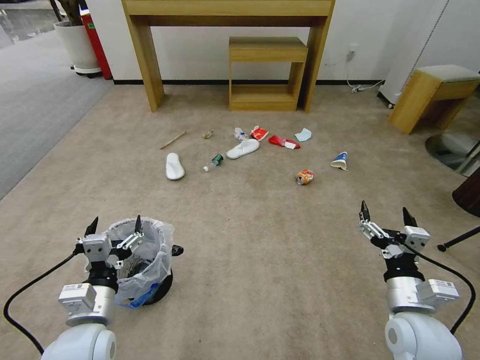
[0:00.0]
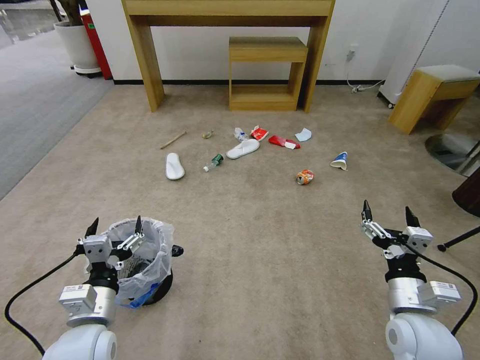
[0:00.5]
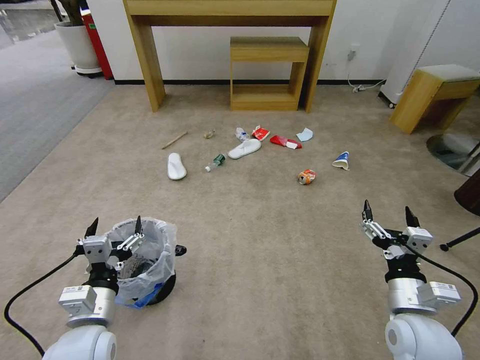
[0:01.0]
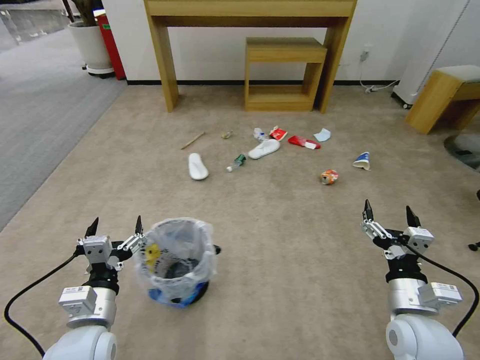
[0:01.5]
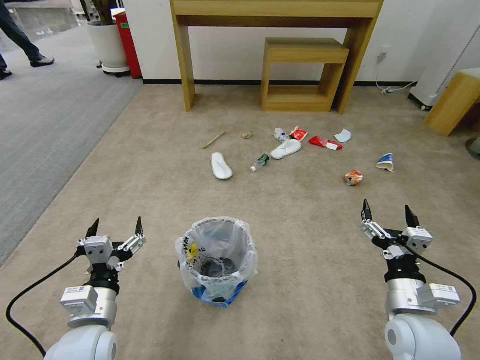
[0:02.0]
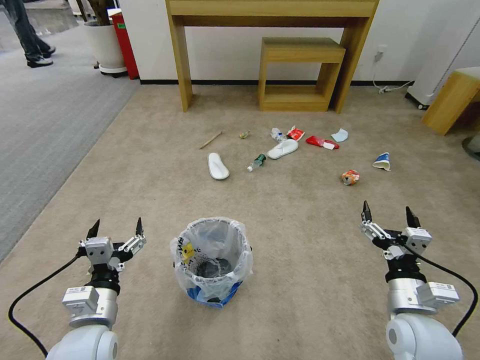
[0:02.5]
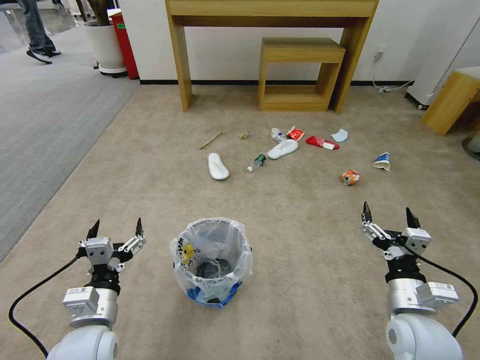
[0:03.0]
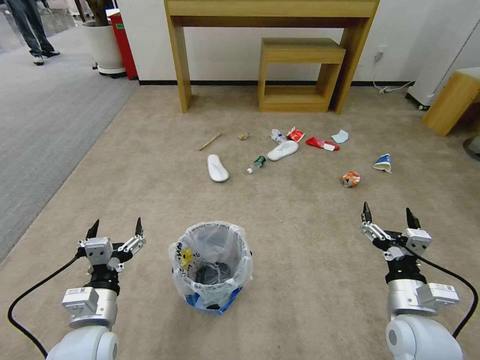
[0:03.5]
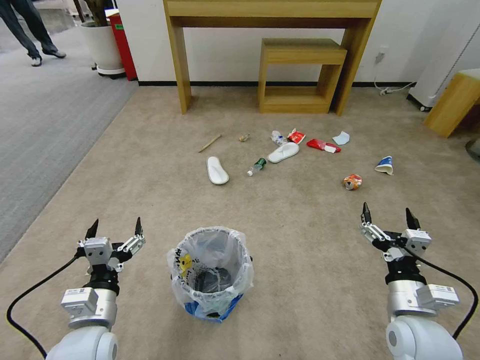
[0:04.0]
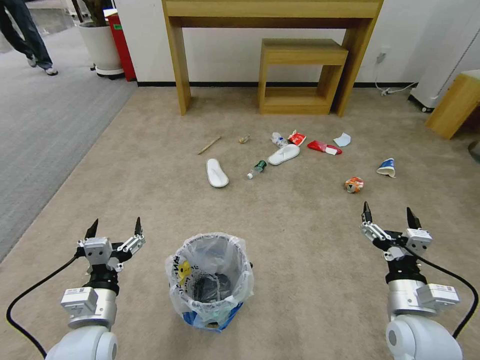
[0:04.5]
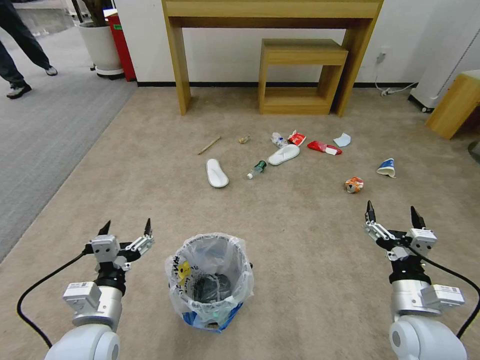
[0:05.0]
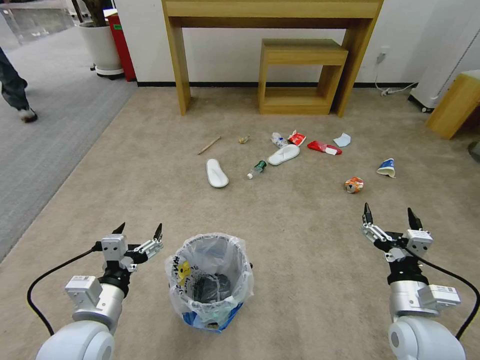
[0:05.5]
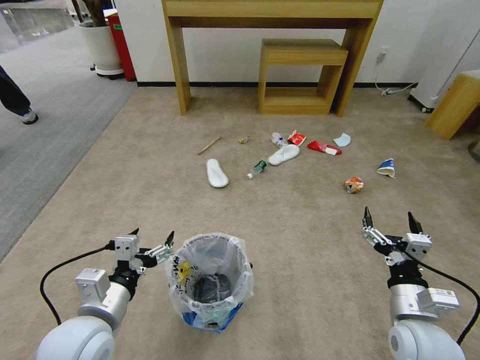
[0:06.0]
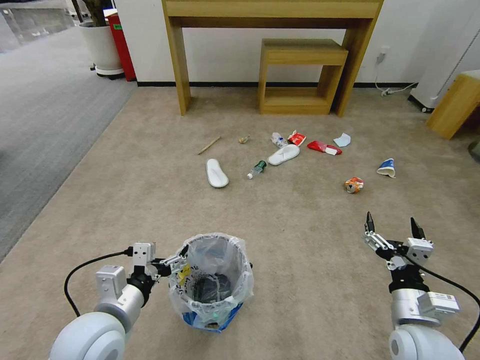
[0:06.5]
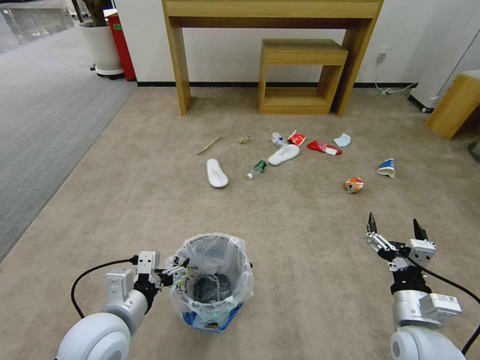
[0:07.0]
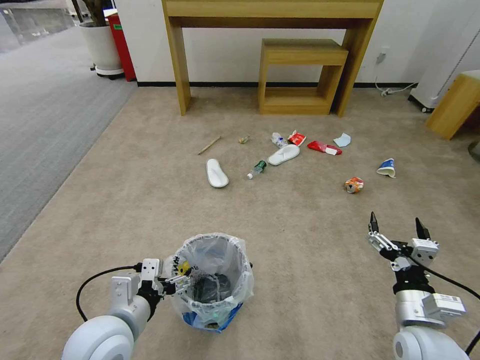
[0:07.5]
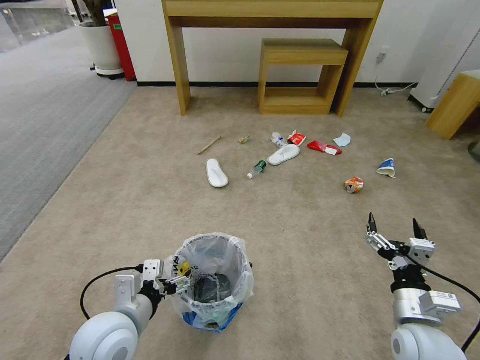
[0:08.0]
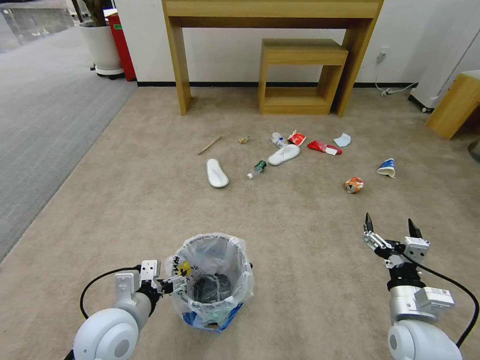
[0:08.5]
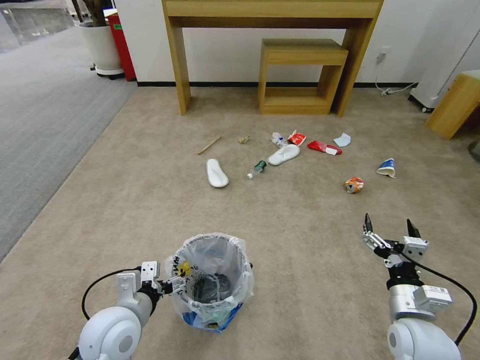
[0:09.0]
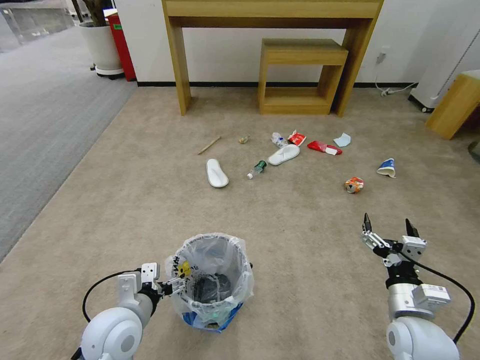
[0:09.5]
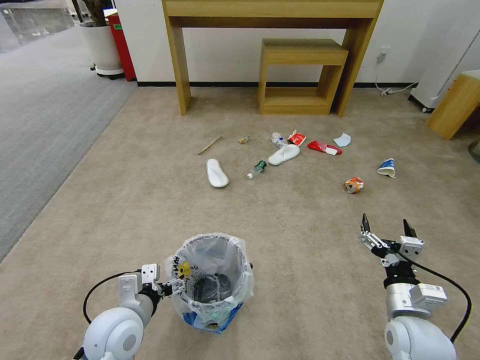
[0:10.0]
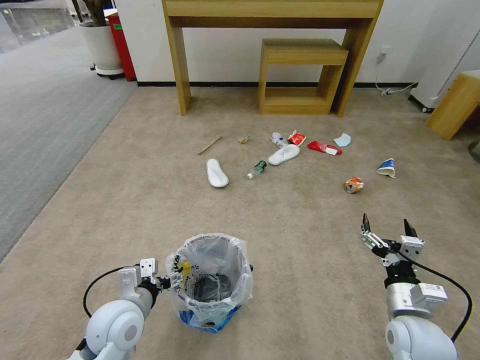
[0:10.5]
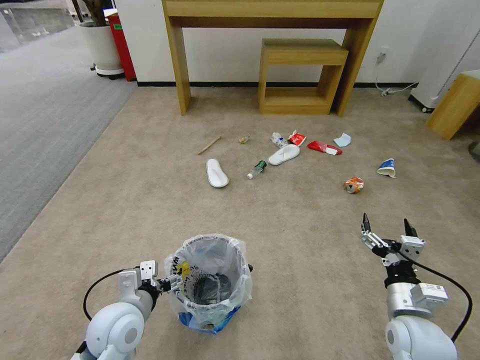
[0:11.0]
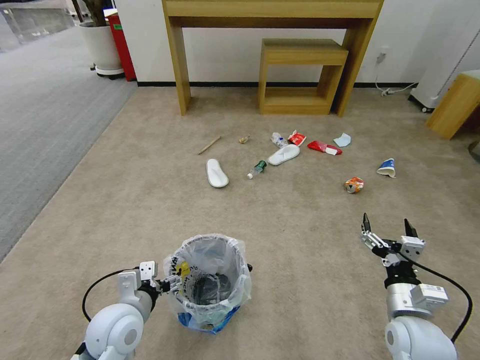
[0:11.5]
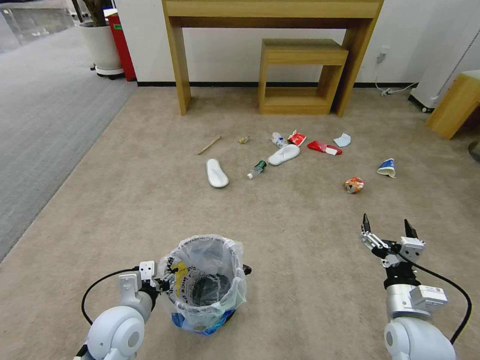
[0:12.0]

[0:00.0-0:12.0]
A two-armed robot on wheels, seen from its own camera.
Task of the whole recording: Pick up the trash bin and place the garbage on the floor into it.
0:02.0 to 0:04.0: Both grippers stay about where they are.
0:08.0 to 0:10.0: The grippers make only small movements.
0:10.0 to 0:12.0: The left gripper closes.

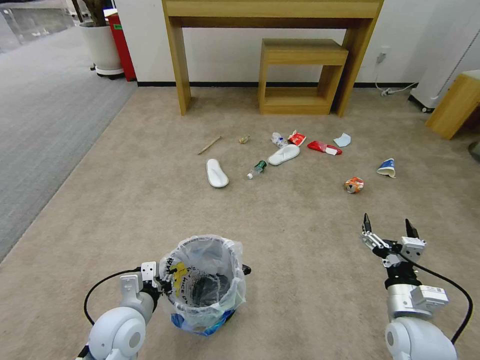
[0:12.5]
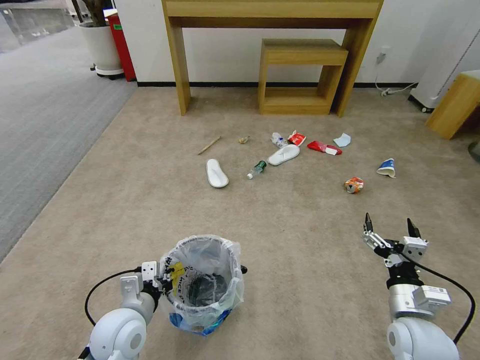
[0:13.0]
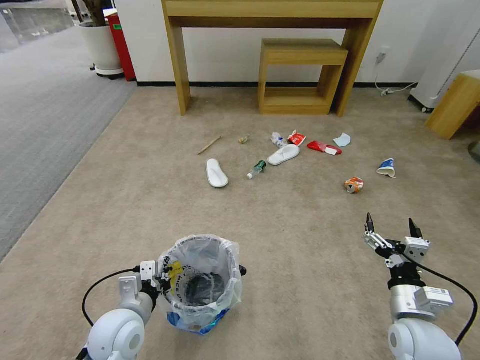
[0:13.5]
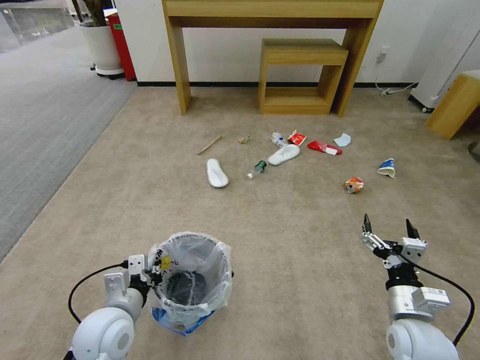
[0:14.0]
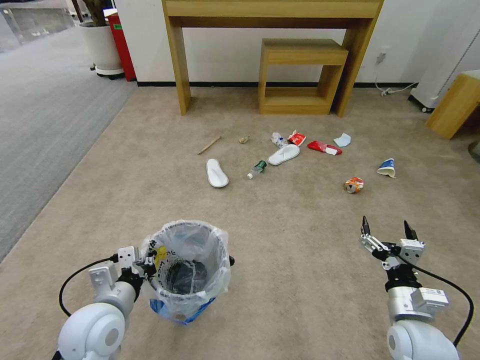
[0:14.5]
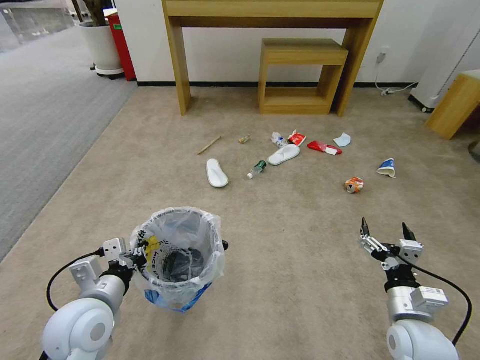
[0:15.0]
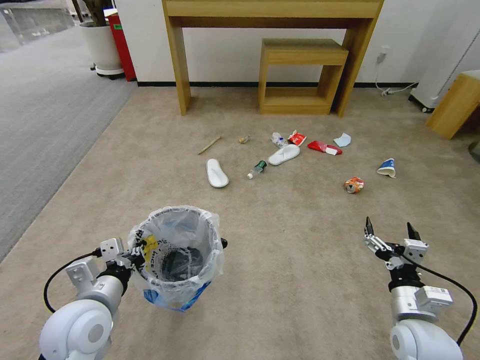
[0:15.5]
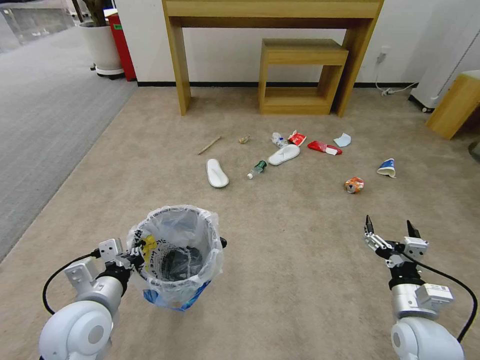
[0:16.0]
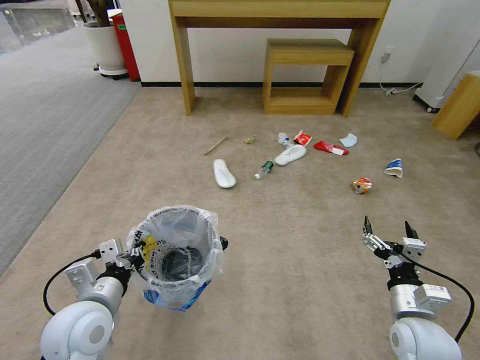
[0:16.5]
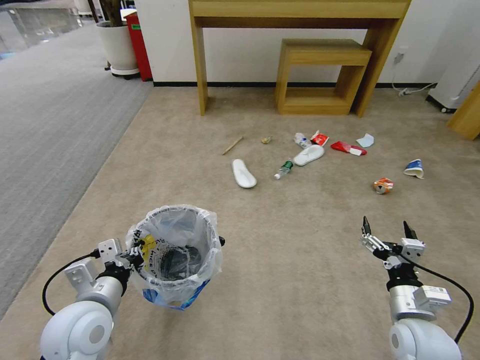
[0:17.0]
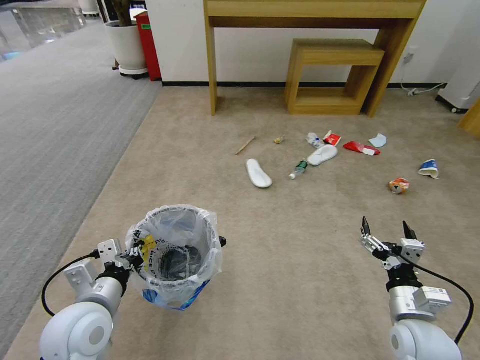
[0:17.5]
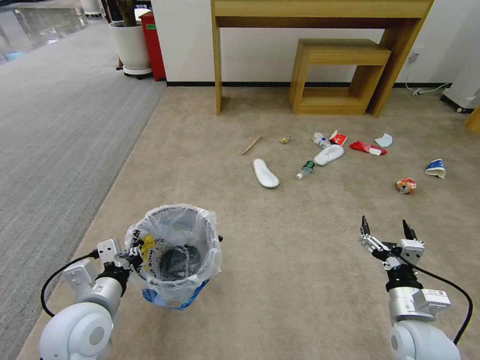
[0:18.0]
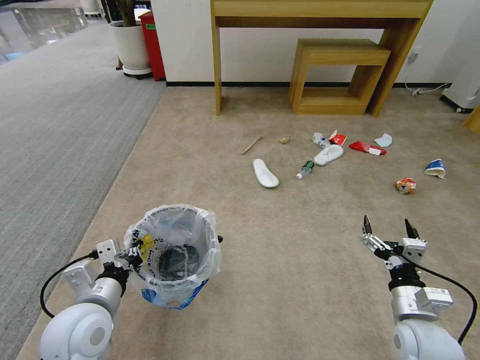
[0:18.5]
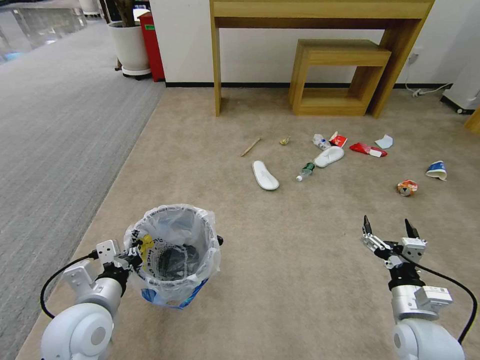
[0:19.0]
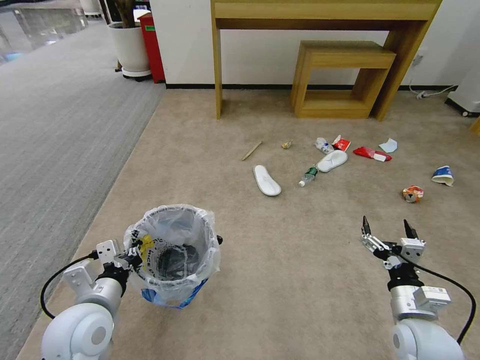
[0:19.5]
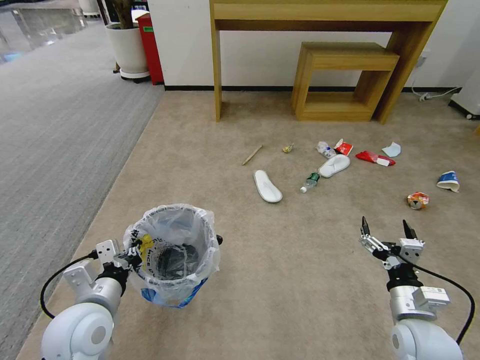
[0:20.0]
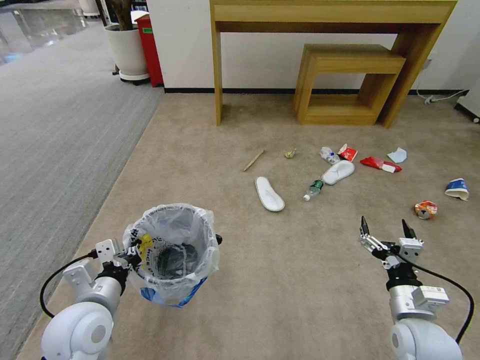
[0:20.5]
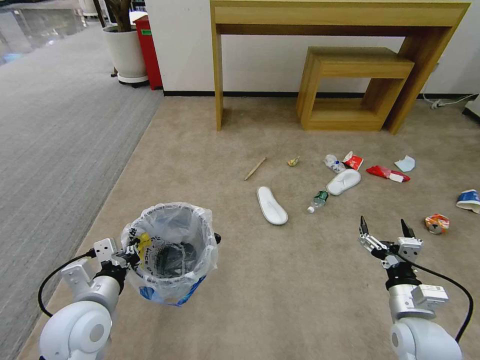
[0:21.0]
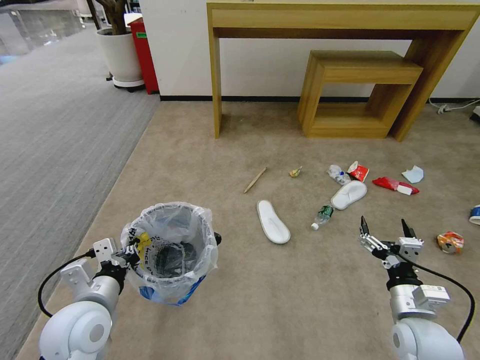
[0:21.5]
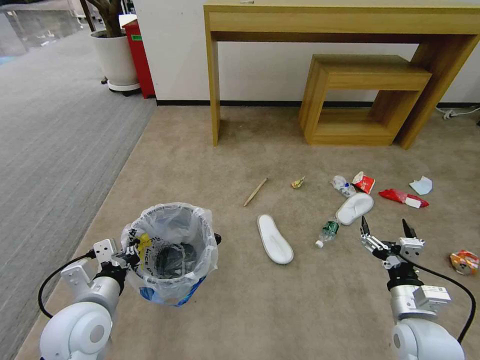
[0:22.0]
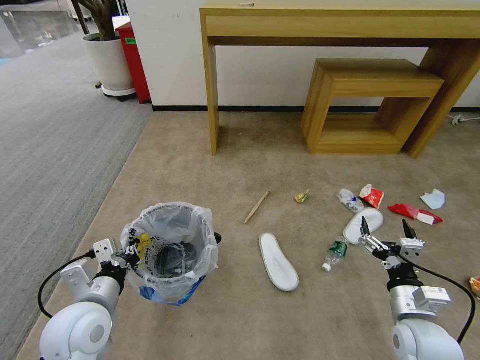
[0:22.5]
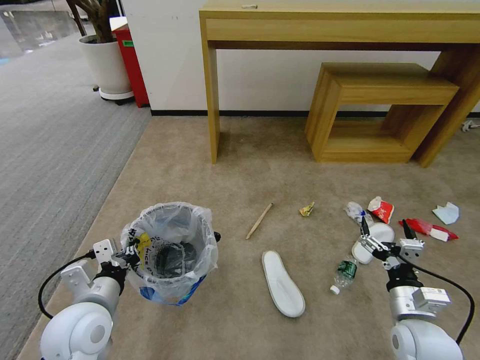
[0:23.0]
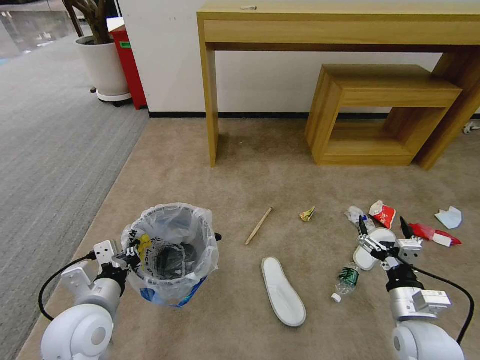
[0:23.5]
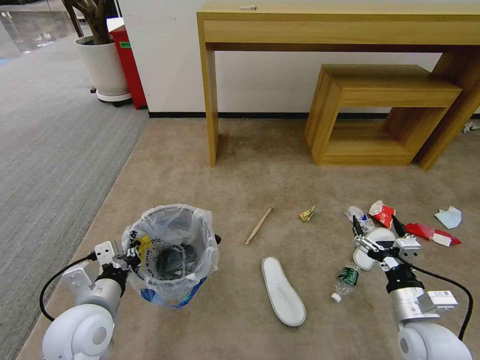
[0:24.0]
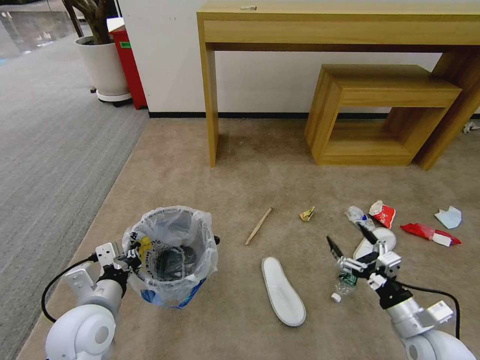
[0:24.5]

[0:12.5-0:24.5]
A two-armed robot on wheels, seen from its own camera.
Task of the whole recording: Pick up the trash bin and place the garbage on the floor into it.
0:12.5 to 0:14.5: The left gripper moves roughly 5 cm.
0:14.5 to 0:16.5: There are only small adjustments of the grippers.
0:16.5 to 0:20.5: Both grippers stay put.

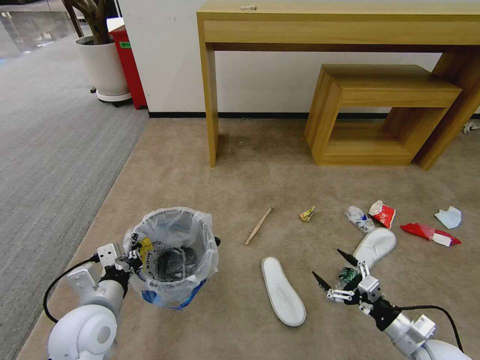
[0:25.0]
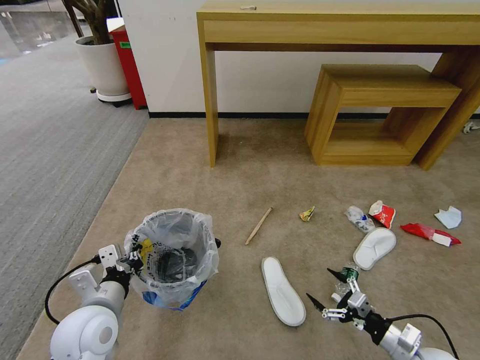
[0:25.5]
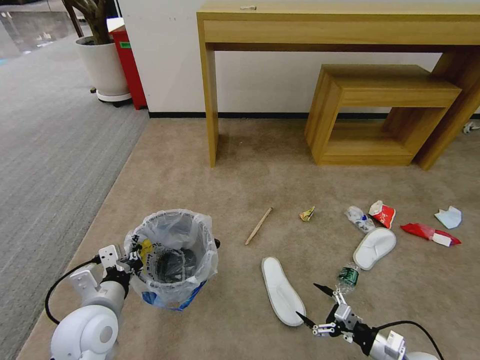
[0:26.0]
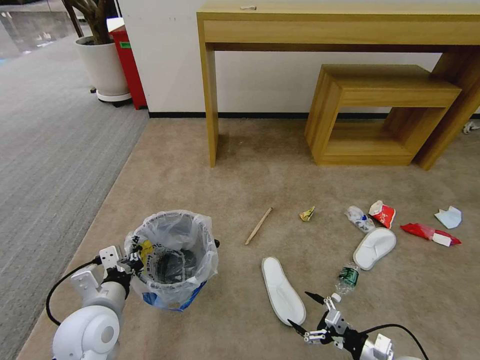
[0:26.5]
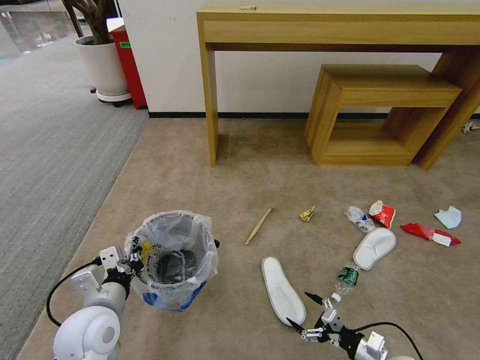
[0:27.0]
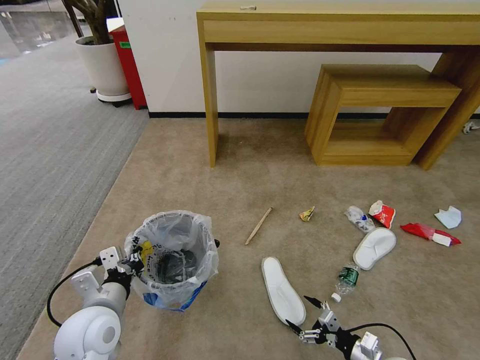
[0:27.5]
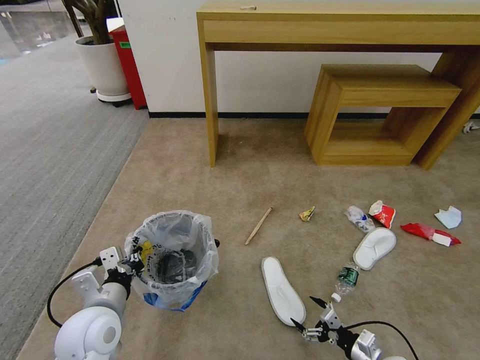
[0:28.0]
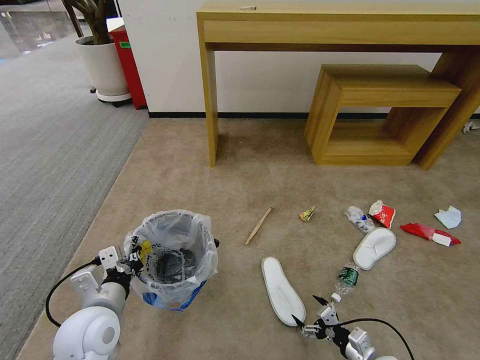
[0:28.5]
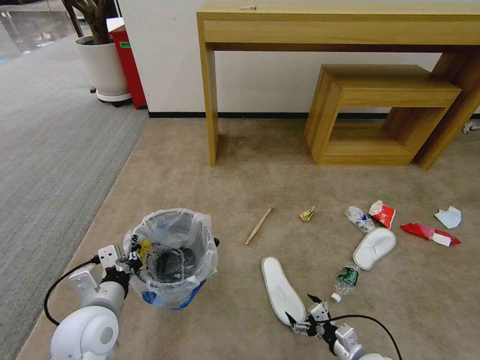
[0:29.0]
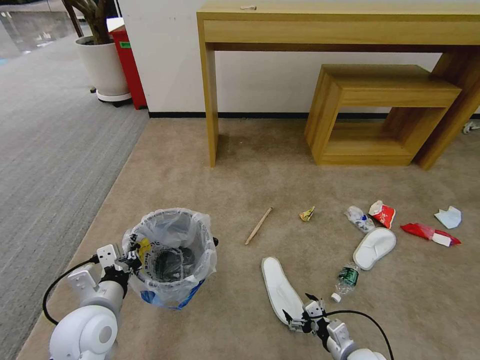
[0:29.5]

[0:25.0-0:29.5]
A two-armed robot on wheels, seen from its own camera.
Task of the whole recording: Pick up the trash bin and place the garbage on the floor into it.
0:25.0 to 0:27.0: The right gripper is displaced downward by roughly 10 cm.
0:27.0 to 0:29.5: The right gripper shifts about 5 cm to the left.
